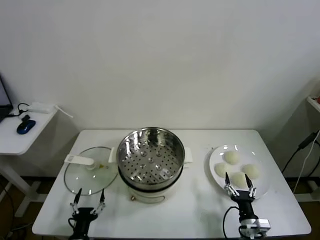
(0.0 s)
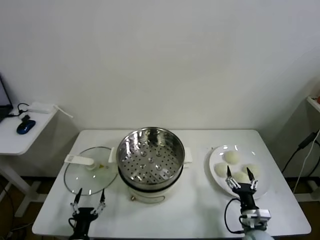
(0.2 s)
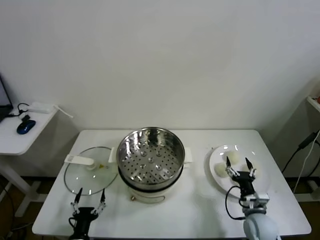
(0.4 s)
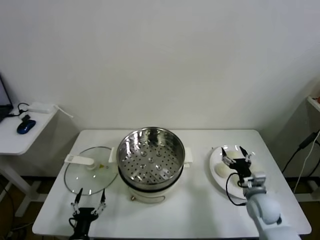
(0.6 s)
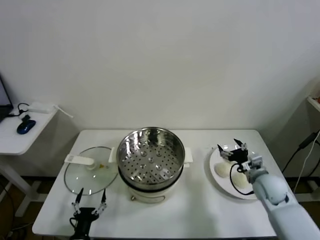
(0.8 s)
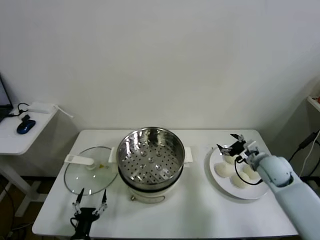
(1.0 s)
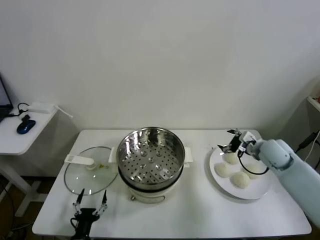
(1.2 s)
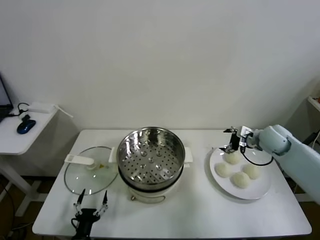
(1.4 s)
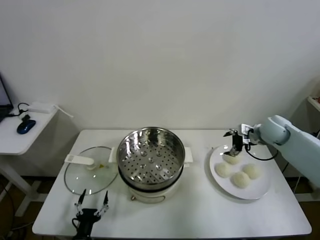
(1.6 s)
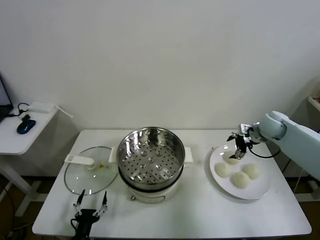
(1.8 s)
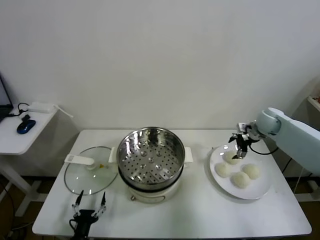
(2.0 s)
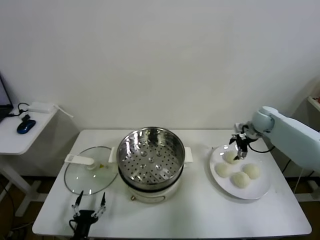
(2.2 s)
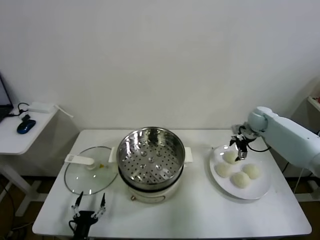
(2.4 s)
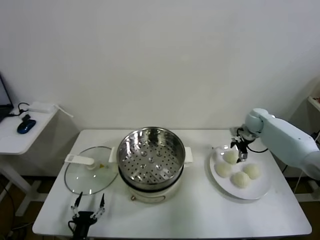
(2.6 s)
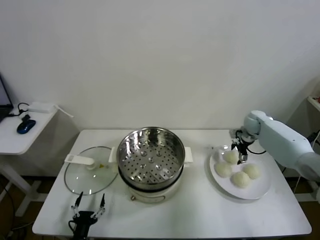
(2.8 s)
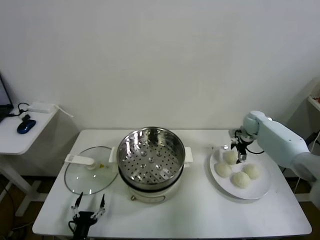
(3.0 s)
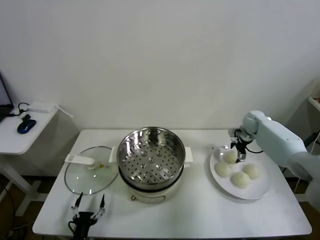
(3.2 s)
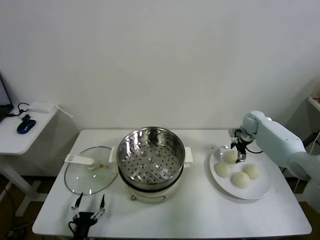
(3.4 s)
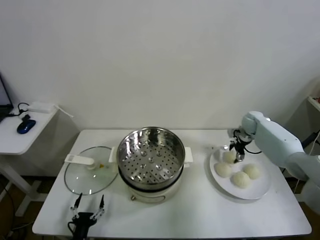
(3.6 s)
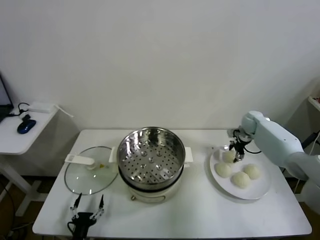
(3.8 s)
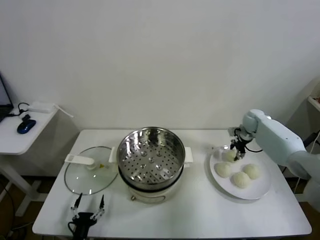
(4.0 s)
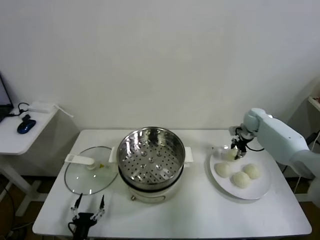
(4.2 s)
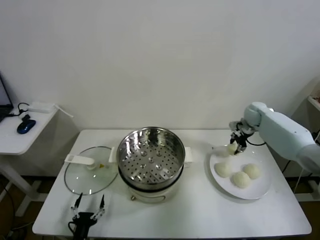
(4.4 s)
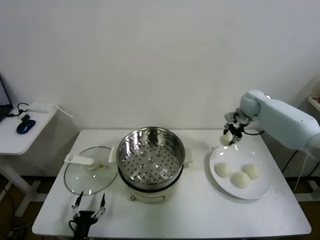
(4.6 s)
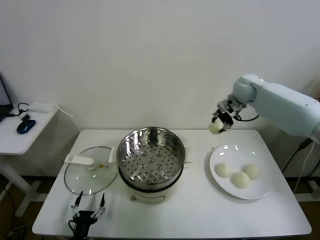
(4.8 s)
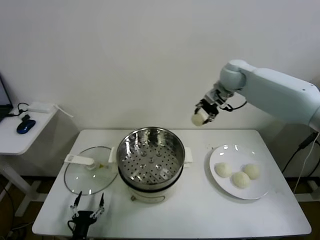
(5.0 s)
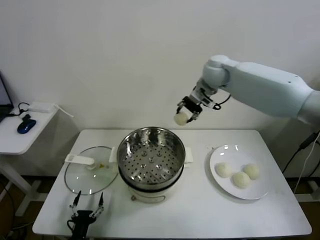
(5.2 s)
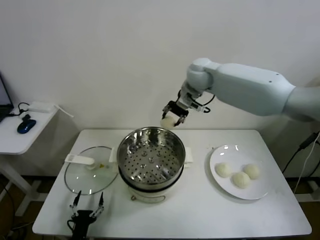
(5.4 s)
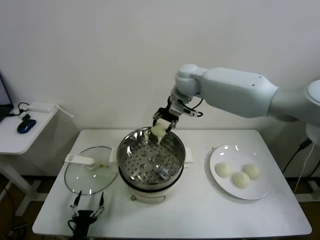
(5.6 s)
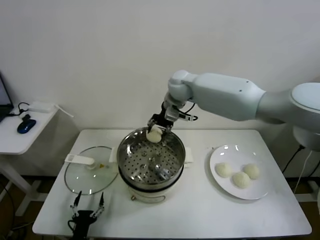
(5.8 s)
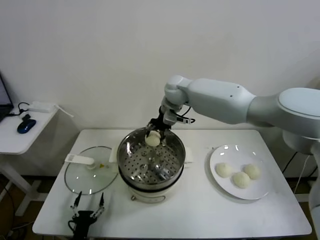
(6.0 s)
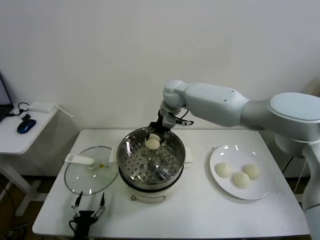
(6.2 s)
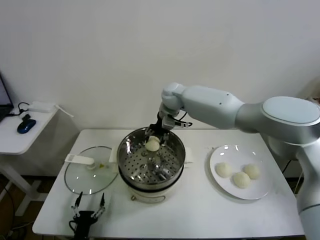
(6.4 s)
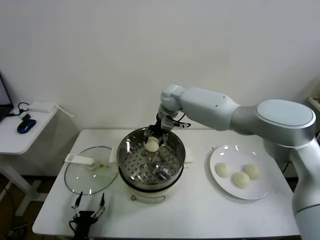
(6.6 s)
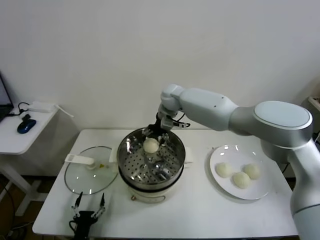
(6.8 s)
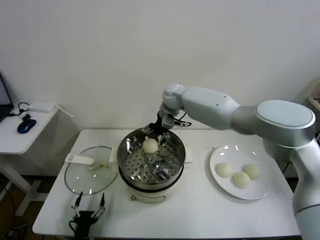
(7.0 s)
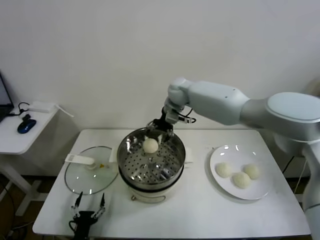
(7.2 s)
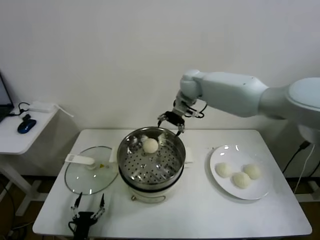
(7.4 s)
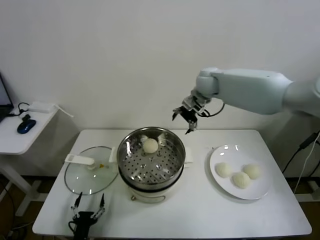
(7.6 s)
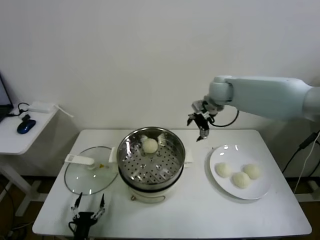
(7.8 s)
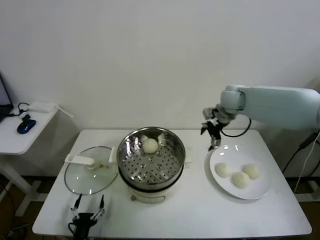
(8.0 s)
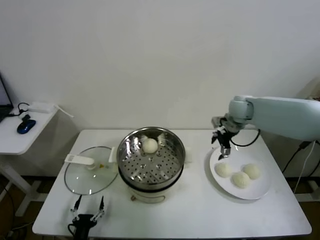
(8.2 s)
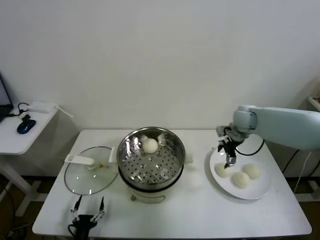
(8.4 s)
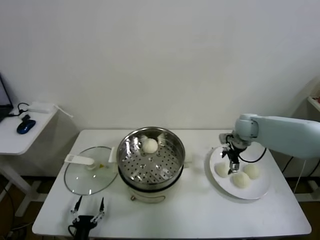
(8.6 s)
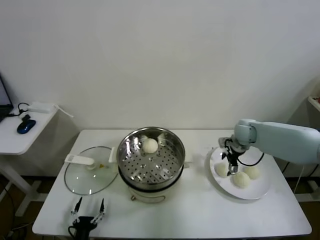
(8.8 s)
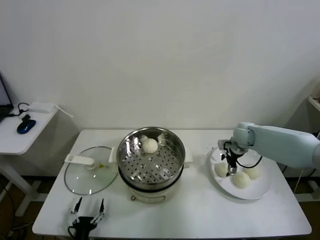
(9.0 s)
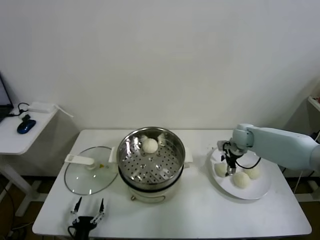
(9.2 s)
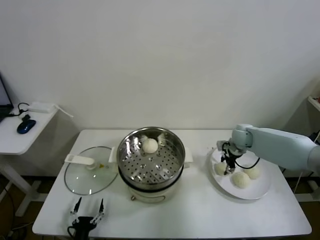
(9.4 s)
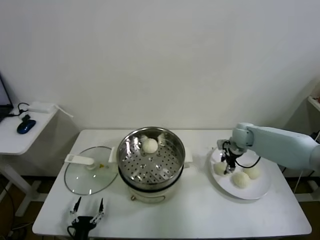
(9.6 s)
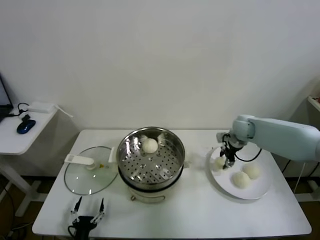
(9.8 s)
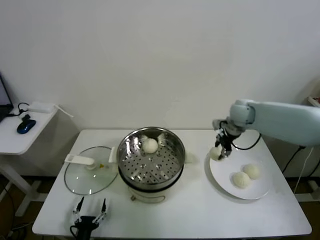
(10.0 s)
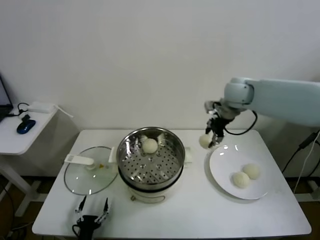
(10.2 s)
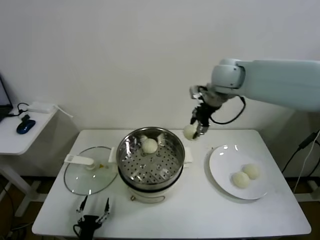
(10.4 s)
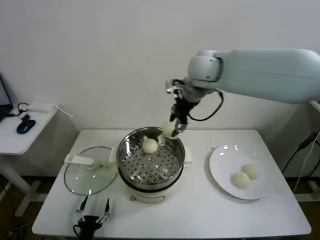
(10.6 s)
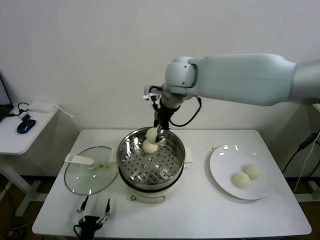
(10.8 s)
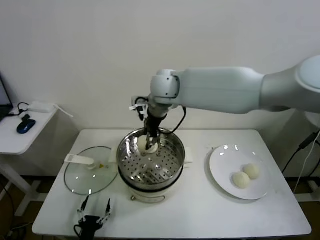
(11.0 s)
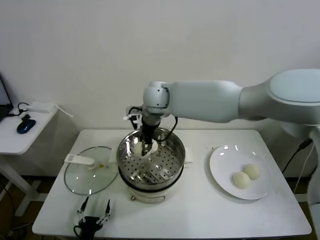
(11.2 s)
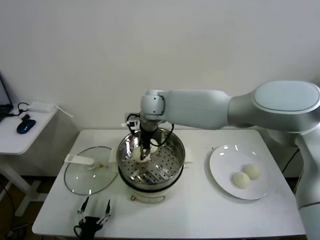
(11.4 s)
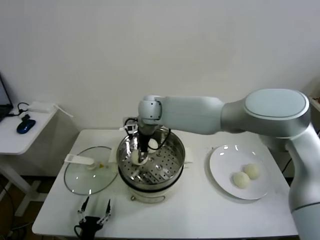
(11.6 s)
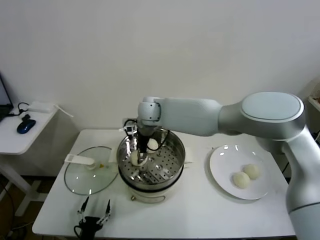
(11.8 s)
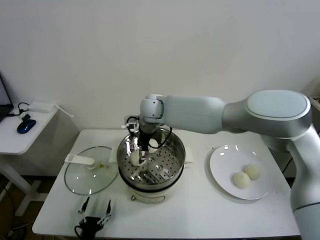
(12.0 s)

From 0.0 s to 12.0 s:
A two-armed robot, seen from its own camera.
Task of the whole recording: take steamed baozi put them in steamer.
Step, from 0.0 s to 3.8 s: Grasp the baozi in the plate with right gripper.
Step, from 4.0 s to 7.0 s: Place the baozi on the steamer with right gripper.
Step, from 7.2 s to 9.6 s: Grasp the baozi in the plate with right gripper.
From 1.6 s to 3.0 s: The right gripper travels forward and downward by about 10 cm.
From 3.0 s to 4.4 s: The right gripper shifts about 5 cm upward, and closes up.
From 4.4 s to 6.0 s: The right gripper is displaced to the left by some 30 cm.
From 6.0 s to 7.6 s: The right gripper moves to the right, about 15 cm, and opens.
From 7.6 s to 9.0 s: The right gripper shifts about 25 cm downward and to the right.
From 9.0 s to 10.4 s: The right gripper moves upward and to the left, approximately 30 cm, and closes its fingers.
From 10.4 s to 12.0 s: The right gripper goes approximately 25 cm to the left and downward, and opens.

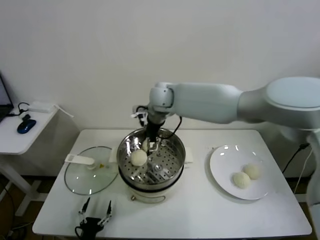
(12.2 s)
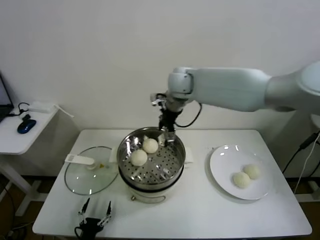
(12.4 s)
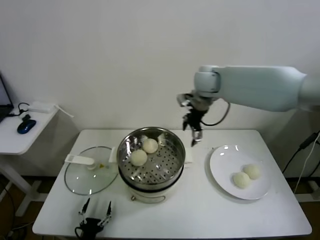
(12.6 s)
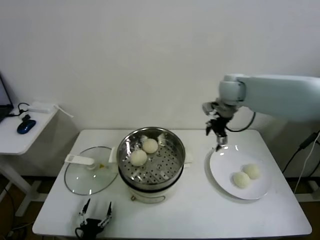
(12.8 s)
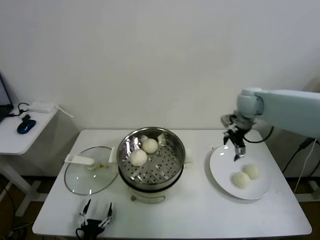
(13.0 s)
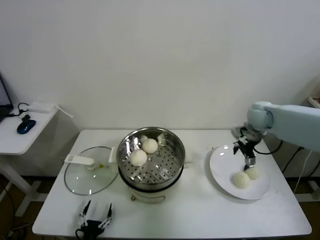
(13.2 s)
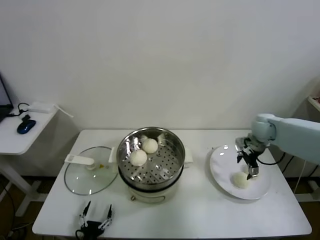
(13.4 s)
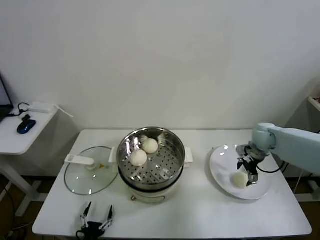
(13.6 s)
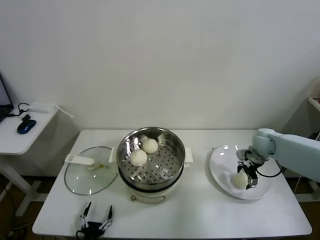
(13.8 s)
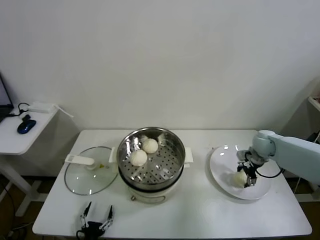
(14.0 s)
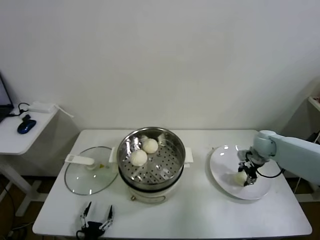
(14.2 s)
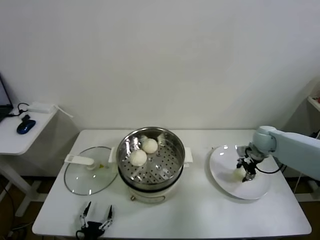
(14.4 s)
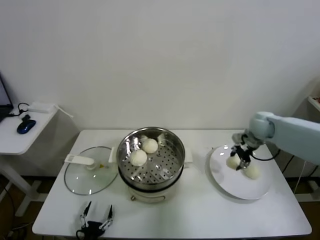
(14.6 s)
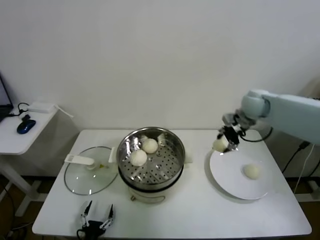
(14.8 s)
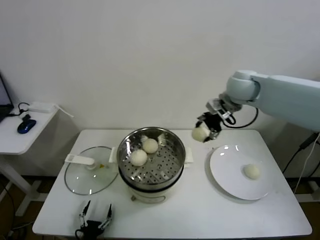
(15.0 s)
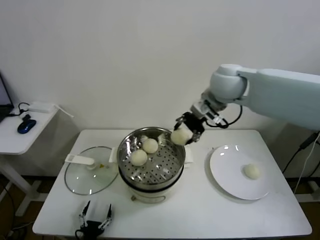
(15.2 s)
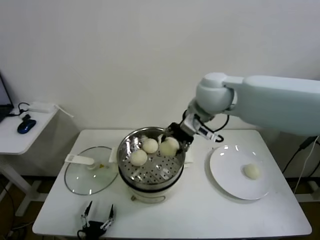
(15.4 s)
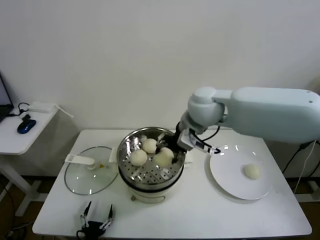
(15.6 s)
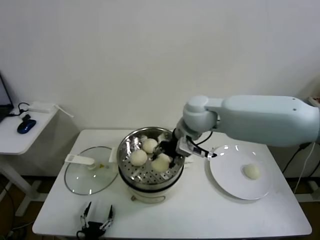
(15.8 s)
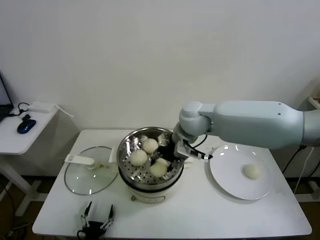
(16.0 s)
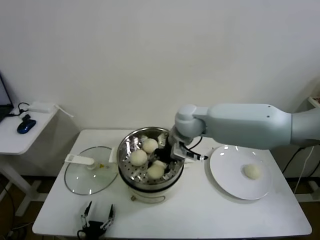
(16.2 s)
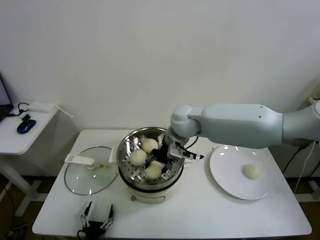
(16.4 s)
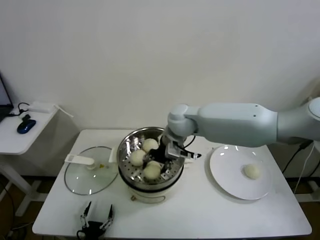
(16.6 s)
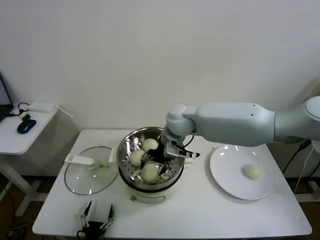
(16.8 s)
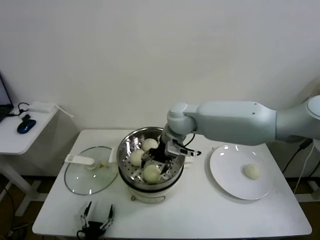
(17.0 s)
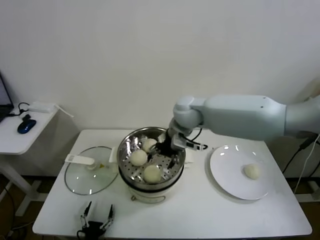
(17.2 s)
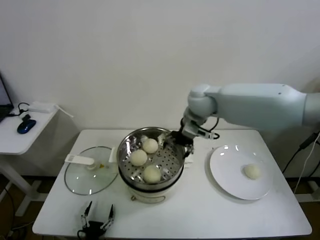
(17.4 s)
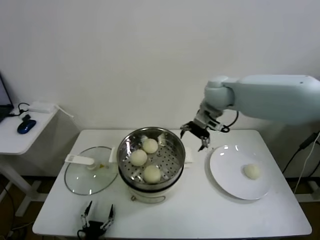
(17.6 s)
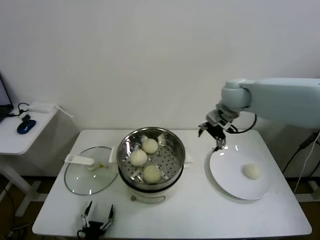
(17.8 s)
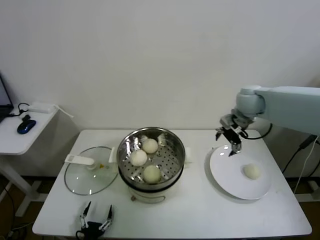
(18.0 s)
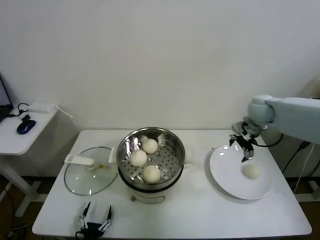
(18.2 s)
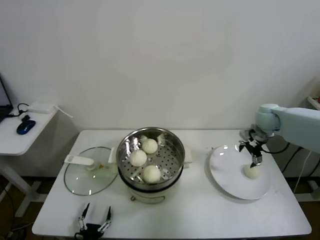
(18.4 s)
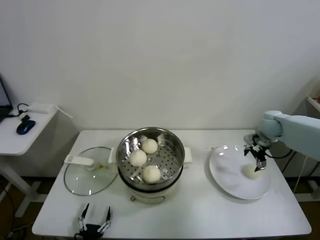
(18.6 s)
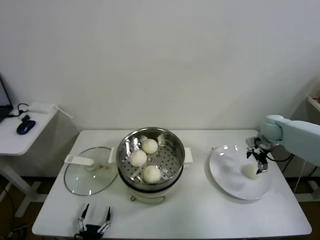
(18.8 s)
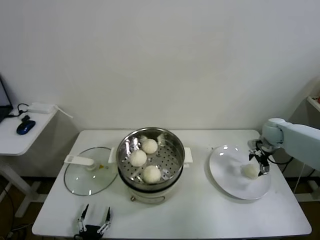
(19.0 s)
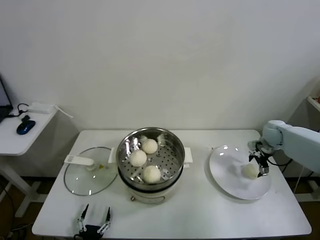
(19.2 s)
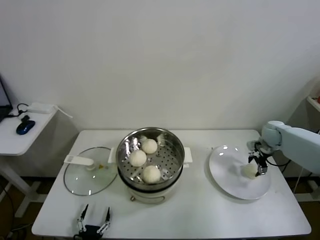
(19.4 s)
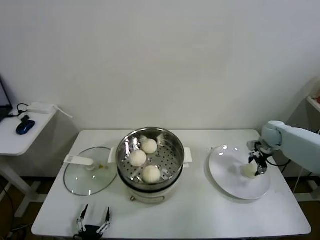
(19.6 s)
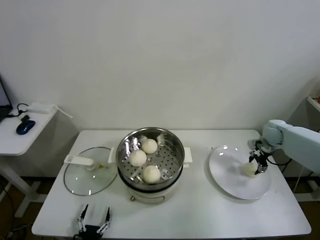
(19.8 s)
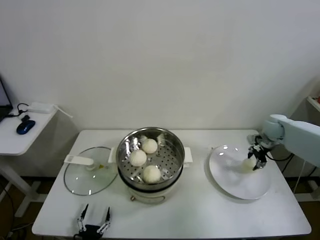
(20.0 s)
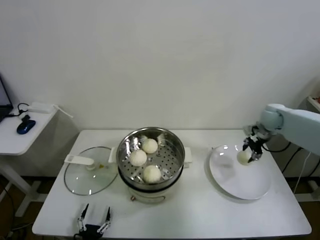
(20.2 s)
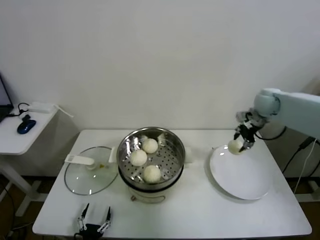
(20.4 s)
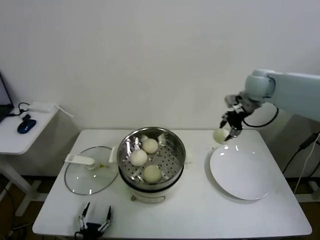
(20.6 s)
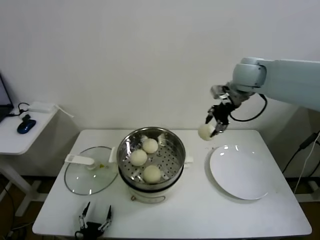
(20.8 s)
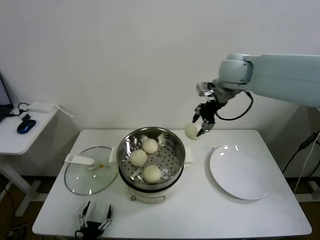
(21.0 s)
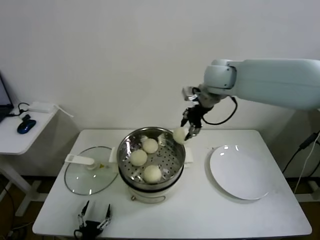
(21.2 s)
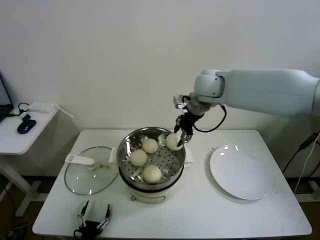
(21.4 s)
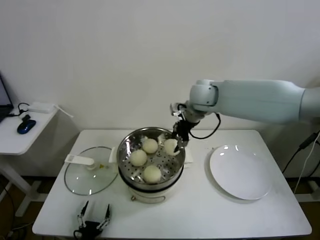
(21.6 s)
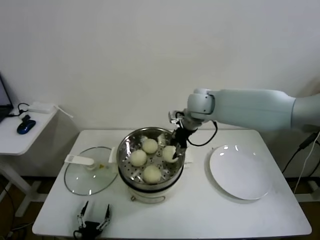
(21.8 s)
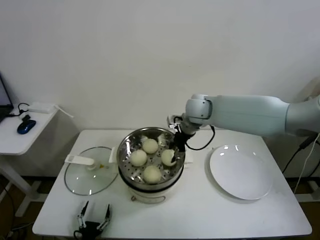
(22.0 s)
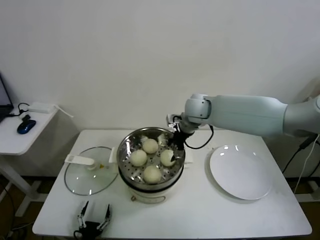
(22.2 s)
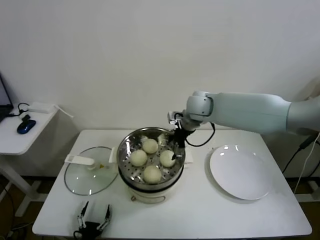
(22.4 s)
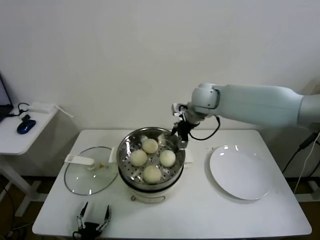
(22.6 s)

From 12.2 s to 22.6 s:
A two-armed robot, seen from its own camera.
Task of the whole recording: take steamed baozi put them in steamer.
Step, from 12.2 s to 14.2 s: Grasp the baozi in the plate with right gripper.
Step, from 14.4 s to 17.0 s: Place the baozi on the steamer with right gripper.
Step, from 17.2 s to 19.6 s: Grasp the baozi in the plate with right gripper.
Step, from 19.8 s to 22.2 s: Place the baozi on the steamer with right gripper.
From 12.2 s to 13.6 s: The right gripper heads to the right and downward, covering about 40 cm.
From 13.6 s to 15.2 s: The right gripper moves upward and to the left, approximately 30 cm, and closes.
From 15.2 s to 16.6 s: The right gripper moves downward and to the left, roughly 15 cm.
From 16.6 s to 18.2 s: The right gripper moves to the right, approximately 25 cm, and opens.
From 18.2 s to 19.6 s: The right gripper shifts some 15 cm downward and to the right, and closes its fingers.
From 19.6 s to 21.2 s: The right gripper shifts roughly 40 cm to the left and upward.
From 21.2 s to 22.6 s: The right gripper shifts some 10 cm downward, and opens.
